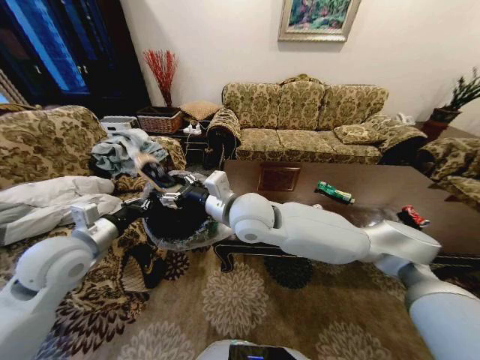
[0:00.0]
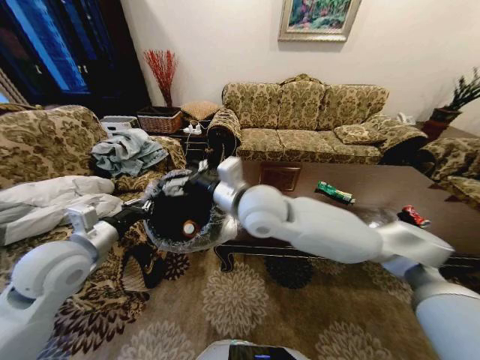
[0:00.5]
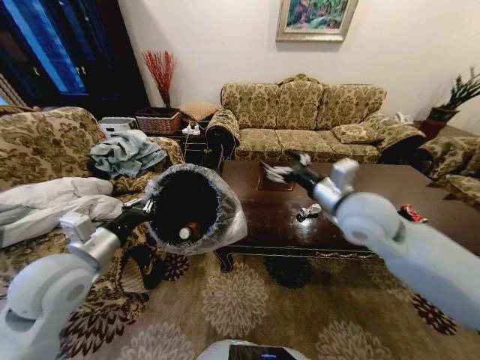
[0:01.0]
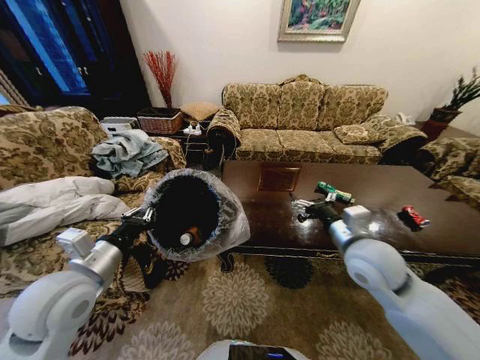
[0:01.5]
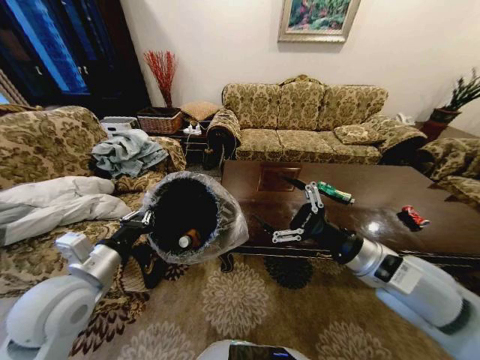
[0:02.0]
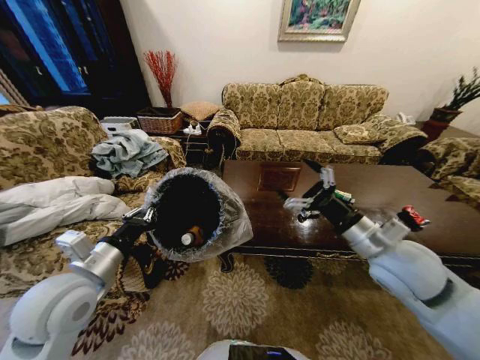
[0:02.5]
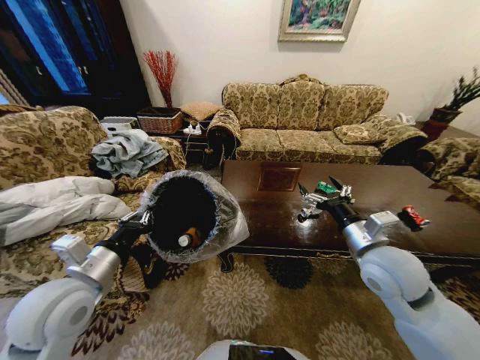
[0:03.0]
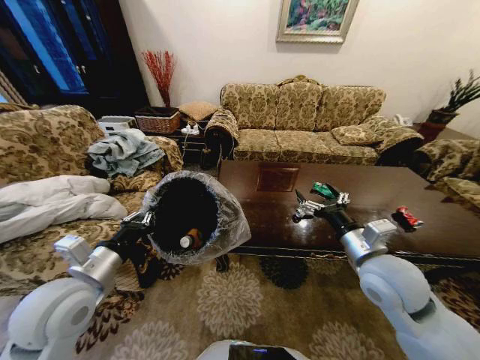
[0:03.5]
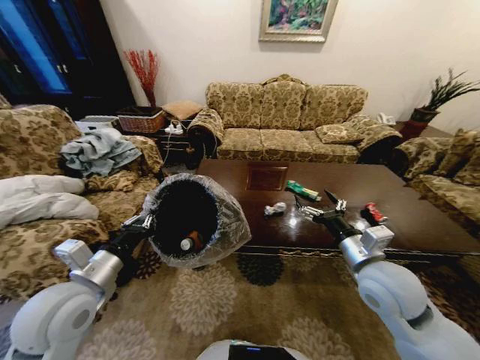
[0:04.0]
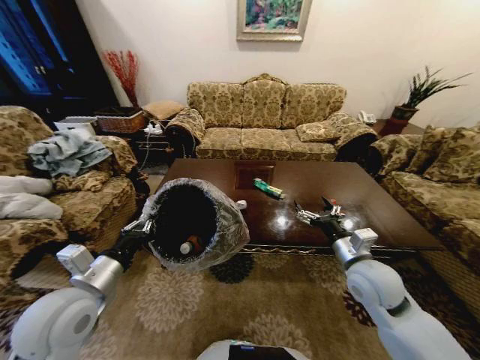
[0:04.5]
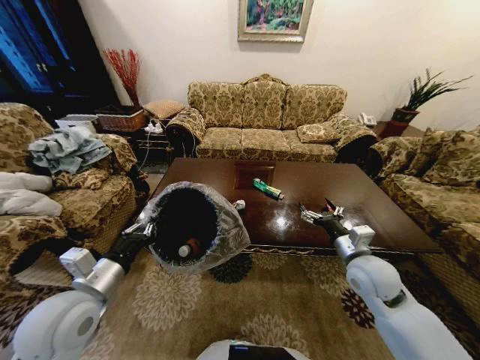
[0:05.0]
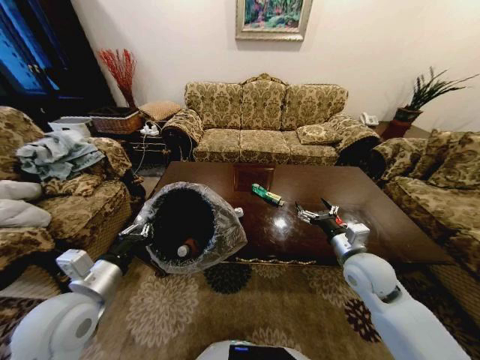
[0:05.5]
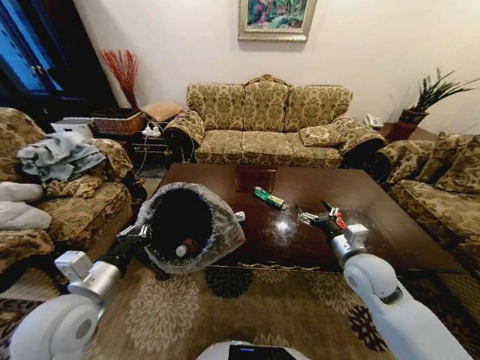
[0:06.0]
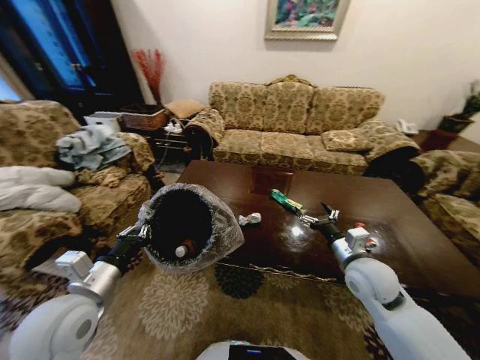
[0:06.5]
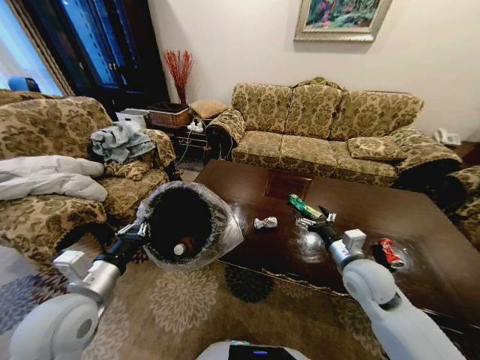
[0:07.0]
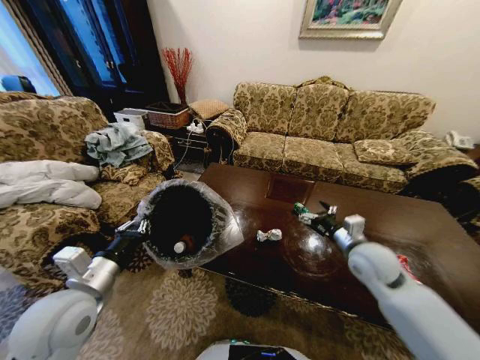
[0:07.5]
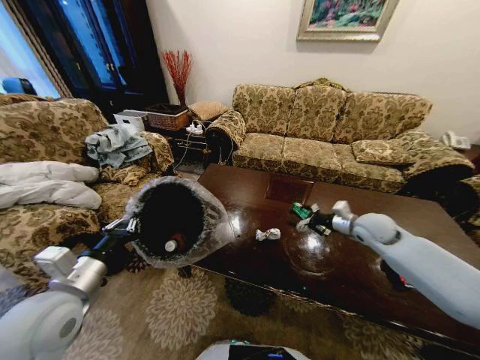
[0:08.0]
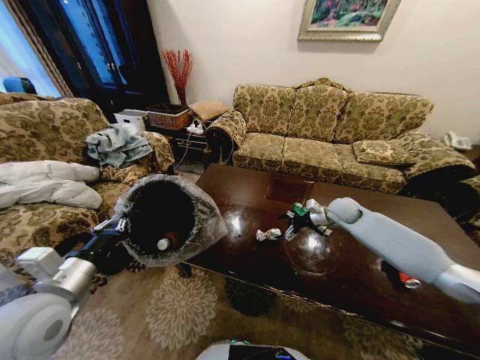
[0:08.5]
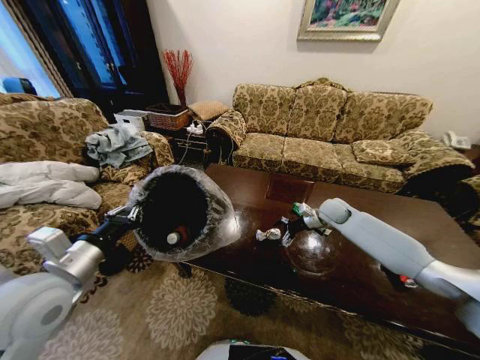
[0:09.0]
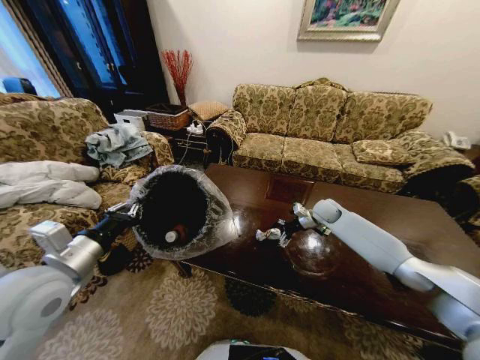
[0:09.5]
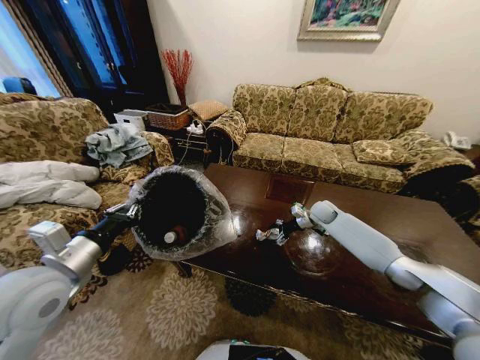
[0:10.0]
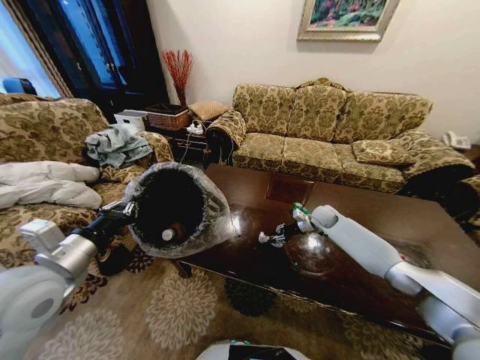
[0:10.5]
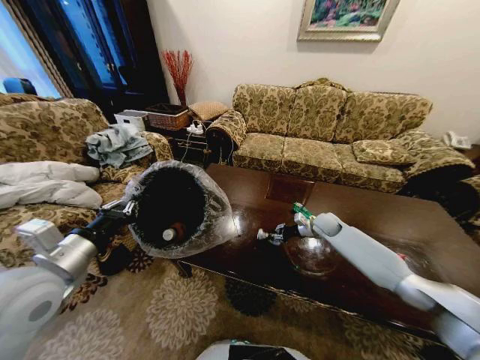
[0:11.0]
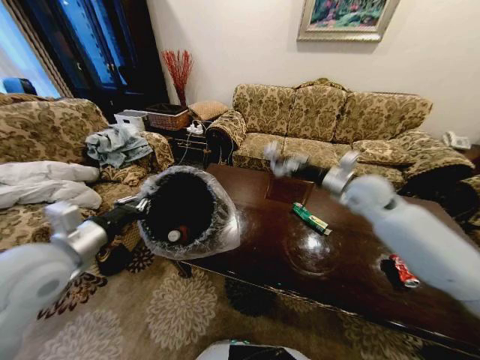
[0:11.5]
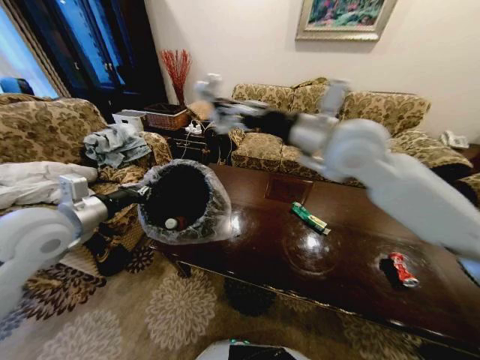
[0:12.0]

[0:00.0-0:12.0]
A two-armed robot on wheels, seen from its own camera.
Task of the whole recording: Move to the front of the table and place the trash on the table into the trash bin.
0:00.0 to 0:02.0: The left gripper heads backward, covering about 5 cm, while the right gripper travels to the right and backward by approximately 30 cm.
0:02.0 to 0:04.0: The right gripper moves downward, some 5 cm.
0:04.0 to 0:06.0: The right gripper moves downward, roughly 5 cm.
0:06.0 to 0:08.0: The right gripper shifts approximately 15 cm forward and to the right.
0:08.0 to 0:10.0: The right gripper shifts about 15 cm forward, downward and to the left.
0:10.0 to 0:12.0: The left gripper goes approximately 10 cm forward and upward. Meanwhile the right gripper heads upward, to the left and backward, covering roughly 40 cm, and closes up.

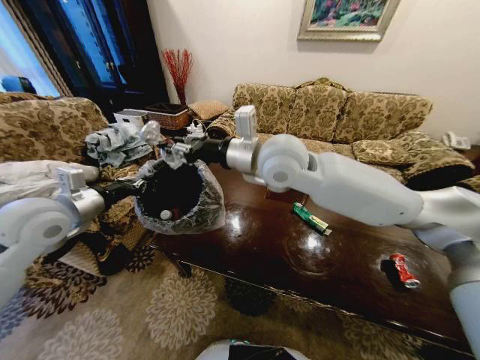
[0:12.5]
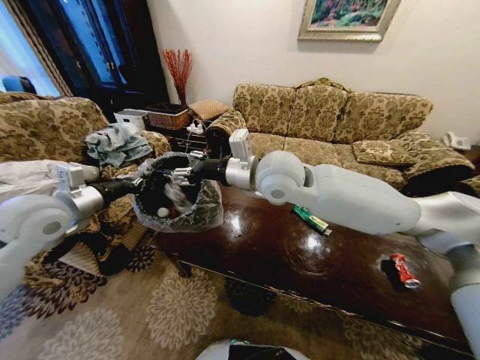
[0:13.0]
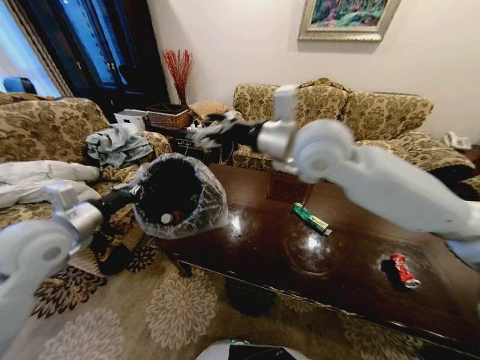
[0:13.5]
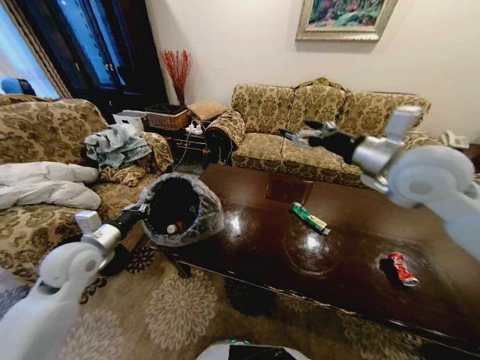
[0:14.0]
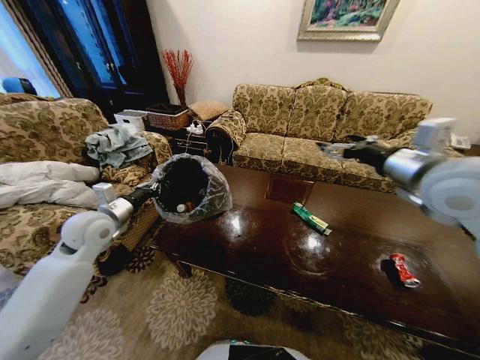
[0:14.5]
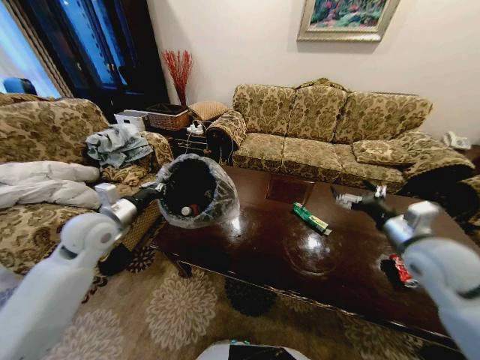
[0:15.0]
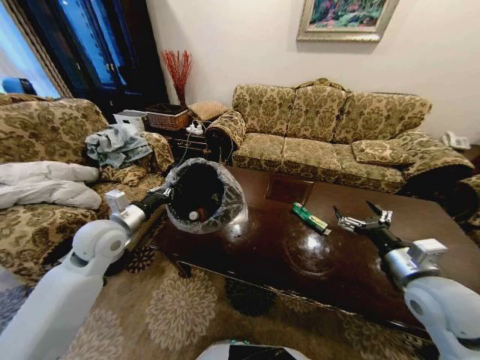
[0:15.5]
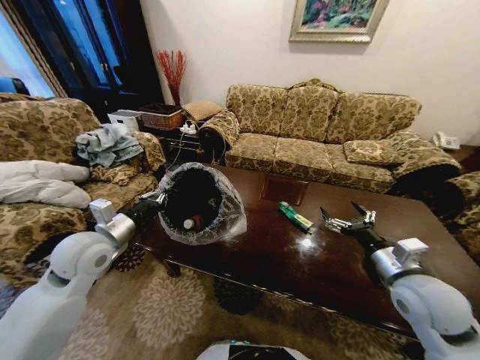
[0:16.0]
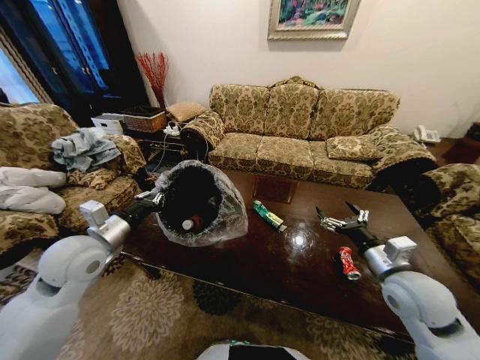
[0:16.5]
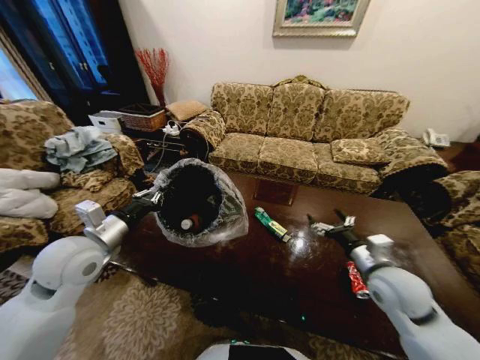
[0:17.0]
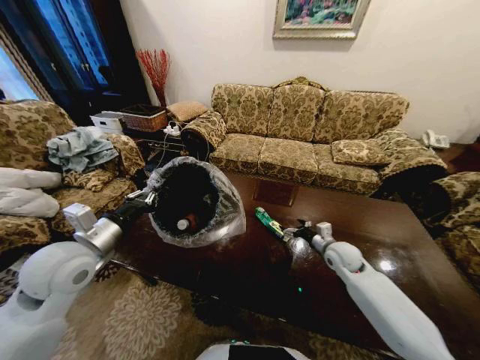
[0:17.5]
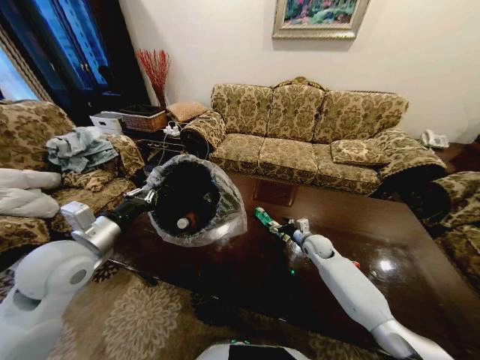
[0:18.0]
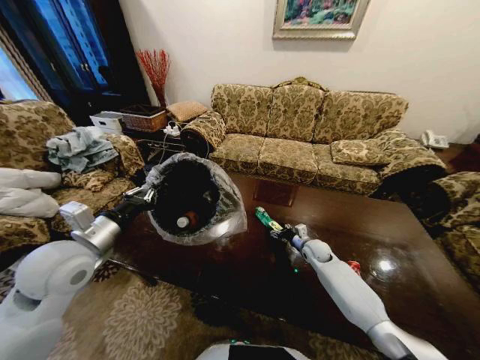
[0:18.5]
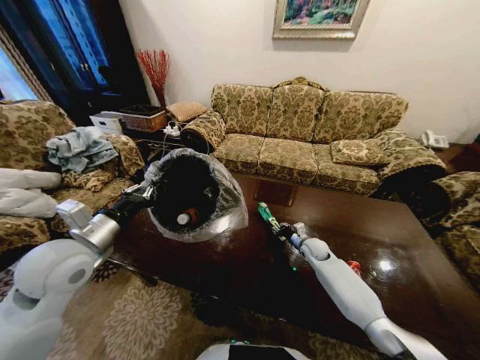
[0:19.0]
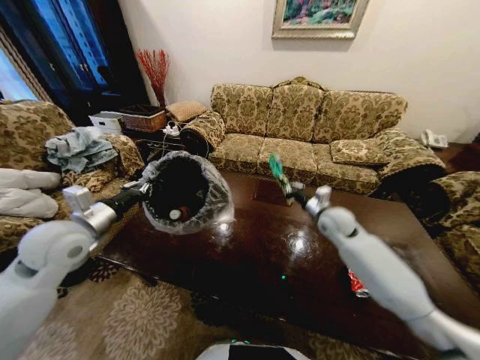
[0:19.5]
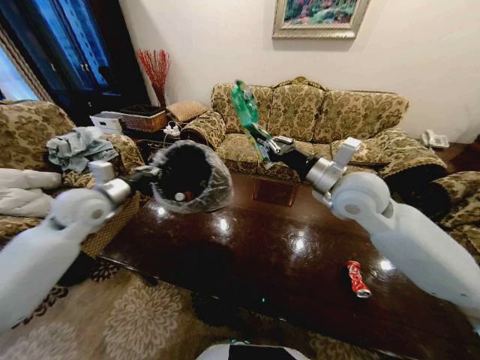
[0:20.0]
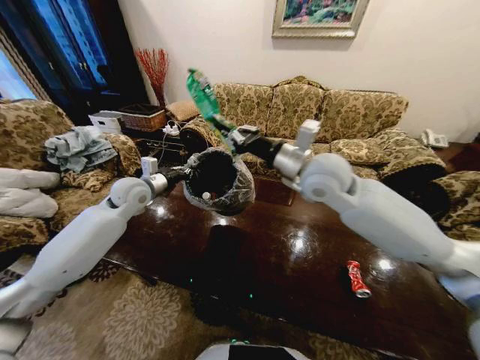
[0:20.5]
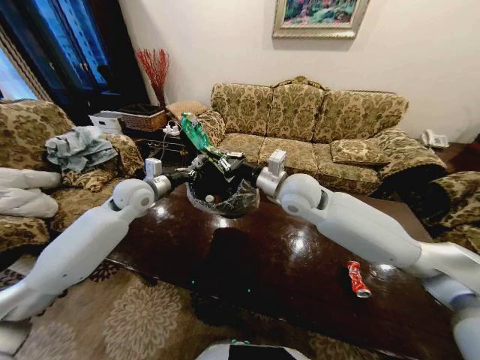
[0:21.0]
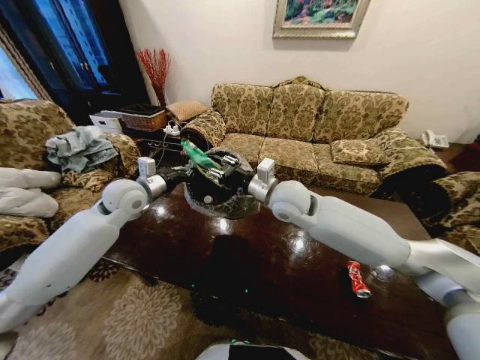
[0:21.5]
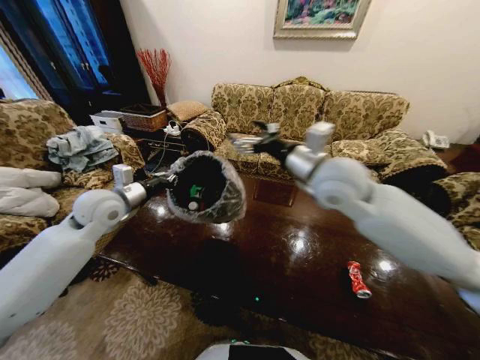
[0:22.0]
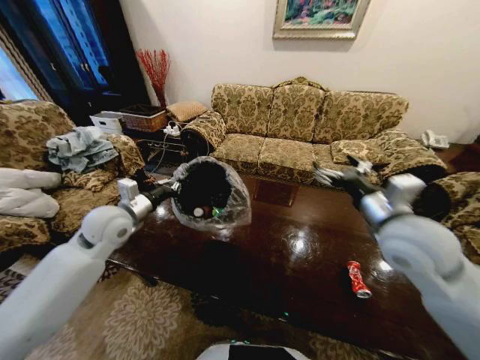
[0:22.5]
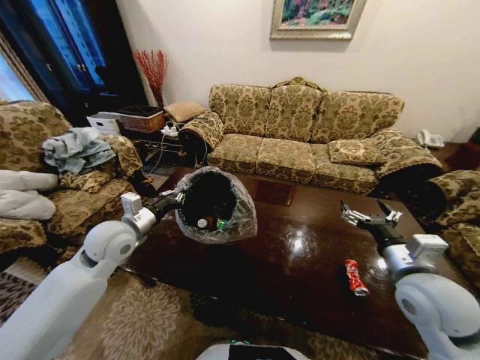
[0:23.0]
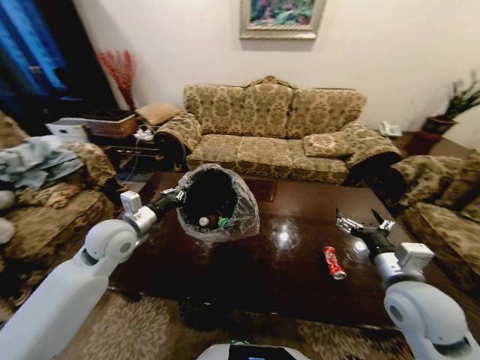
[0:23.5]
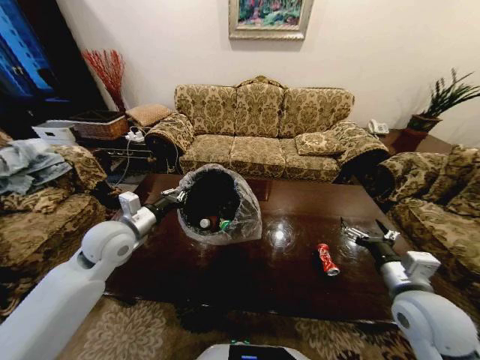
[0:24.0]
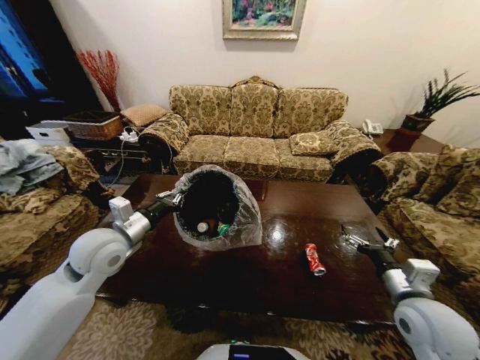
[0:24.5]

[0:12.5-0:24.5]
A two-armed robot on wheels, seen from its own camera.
Task of the whole recording: Move to the front of the table and place the trash on the table into the trash bin.
0:12.5 to 0:14.5: The right gripper goes some 30 cm to the right, and opens its fingers; the left gripper shifts some 10 cm downward.
0:14.5 to 0:16.5: The left gripper heads backward, covering some 10 cm. Meanwhile the right gripper moves downward and backward, approximately 25 cm.
0:16.5 to 0:18.5: The right gripper is displaced downward and forward by some 30 cm.
0:18.5 to 0:20.5: The left gripper shifts about 20 cm forward. Meanwhile the right gripper goes some 40 cm upward, and closes.
0:20.5 to 0:22.5: The right gripper shifts roughly 20 cm to the right, backward and downward, and opens. The left gripper heads backward, covering roughly 10 cm.
0:22.5 to 0:24.5: The right gripper moves downward, backward and to the right, roughly 15 cm. Meanwhile the left gripper goes about 5 cm backward.

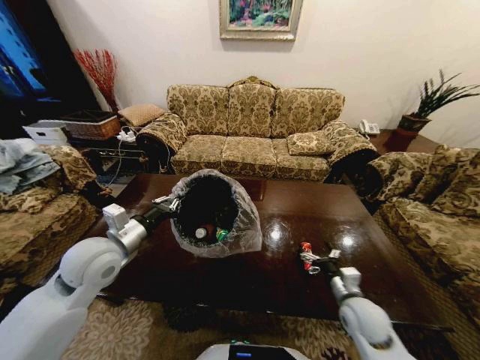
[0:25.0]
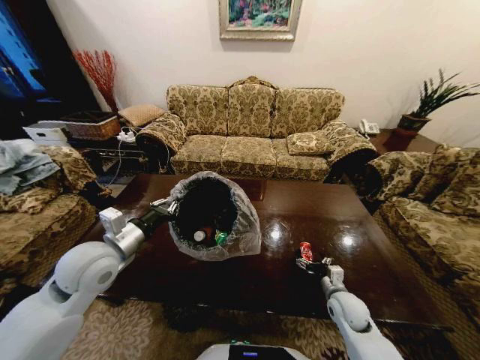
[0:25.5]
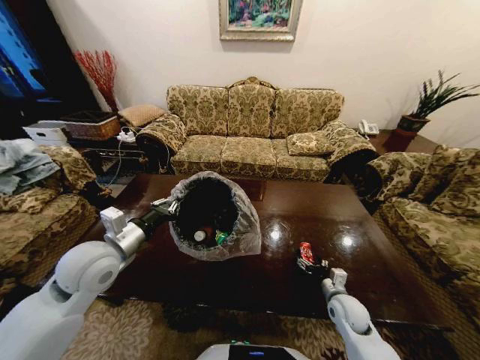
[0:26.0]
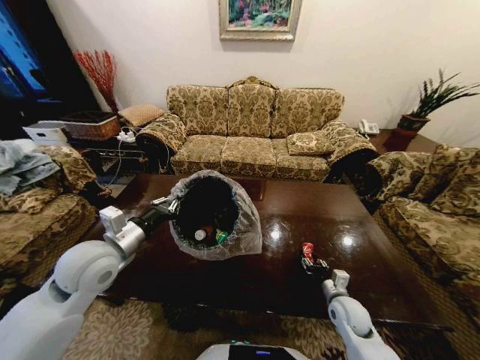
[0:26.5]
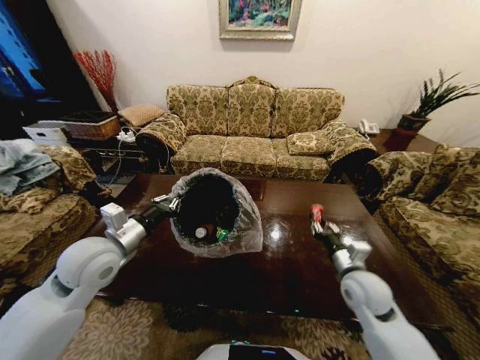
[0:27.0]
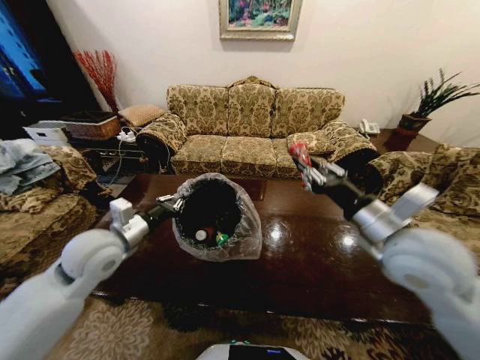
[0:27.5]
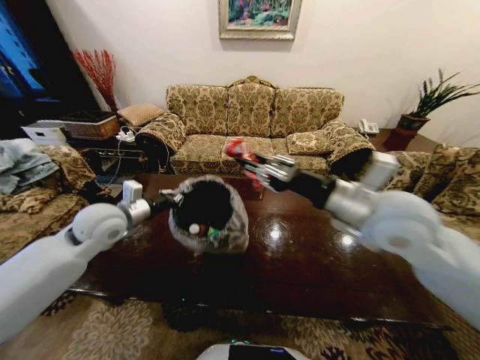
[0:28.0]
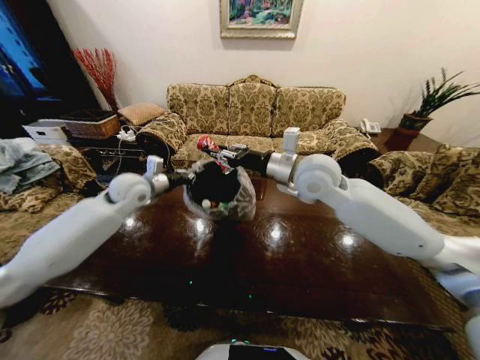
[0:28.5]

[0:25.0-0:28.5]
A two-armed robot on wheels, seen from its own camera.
Task of the whole recording: Move to the front of the table and place the trash on the table into the trash bin.
0:25.0 to 0:27.0: The right gripper shifts roughly 5 cm forward, travels downward and back again, approximately 10 cm each way, and closes up.
0:27.0 to 0:28.5: The right gripper goes approximately 35 cm upward, to the left and forward; the left gripper moves forward, roughly 20 cm.
